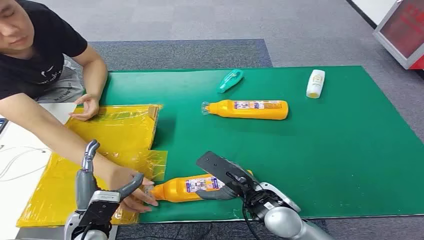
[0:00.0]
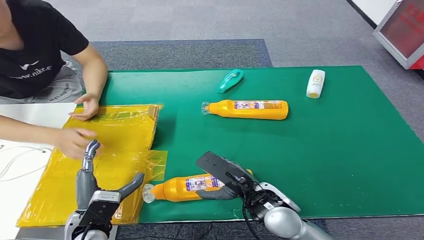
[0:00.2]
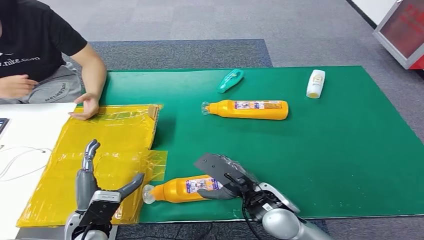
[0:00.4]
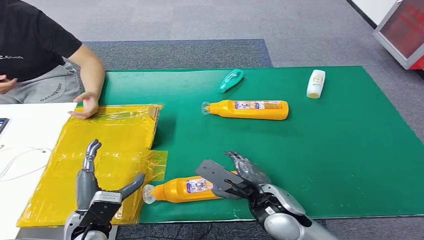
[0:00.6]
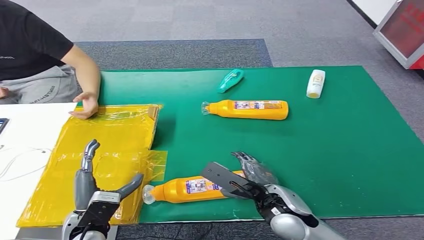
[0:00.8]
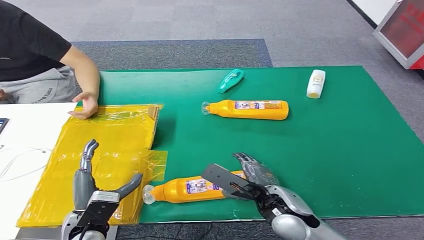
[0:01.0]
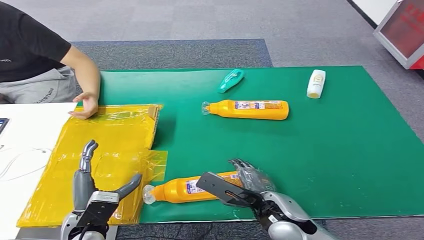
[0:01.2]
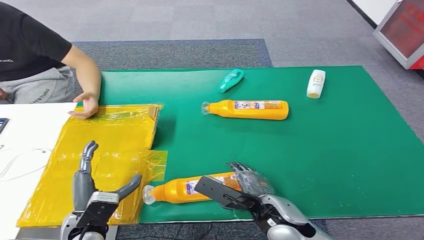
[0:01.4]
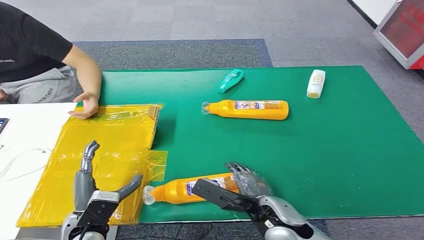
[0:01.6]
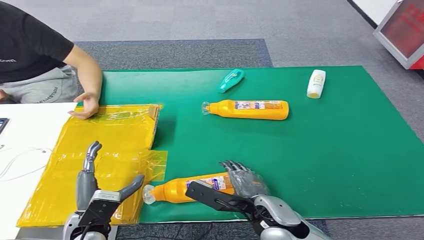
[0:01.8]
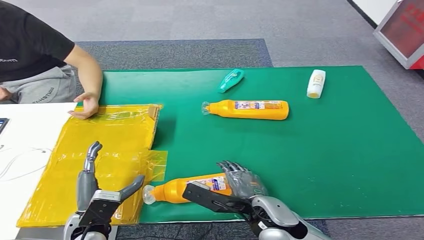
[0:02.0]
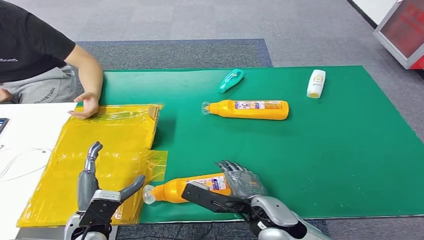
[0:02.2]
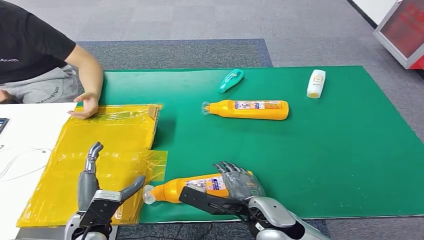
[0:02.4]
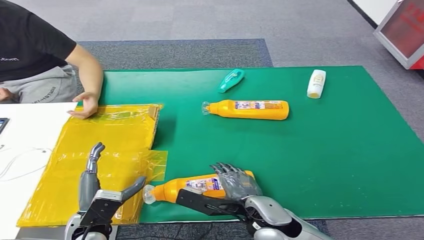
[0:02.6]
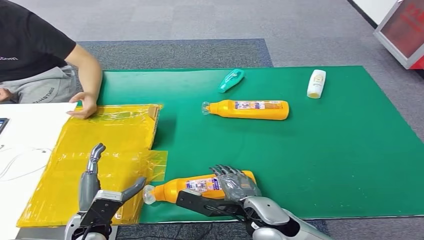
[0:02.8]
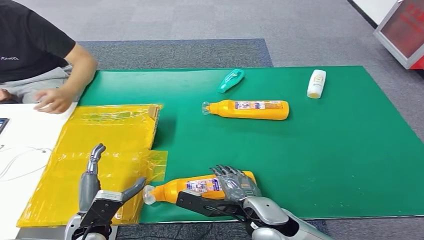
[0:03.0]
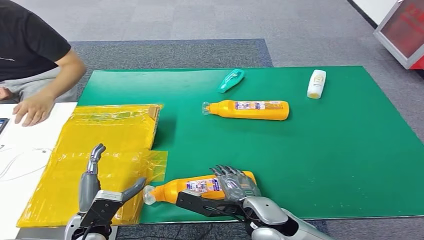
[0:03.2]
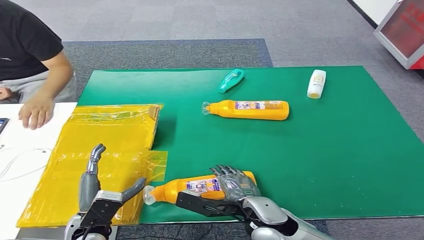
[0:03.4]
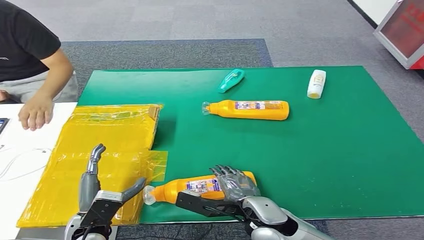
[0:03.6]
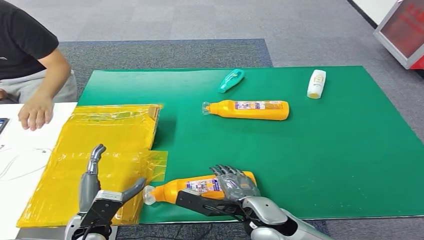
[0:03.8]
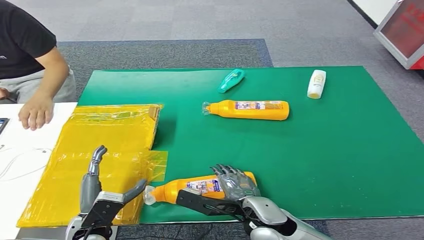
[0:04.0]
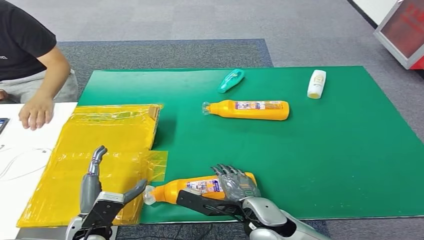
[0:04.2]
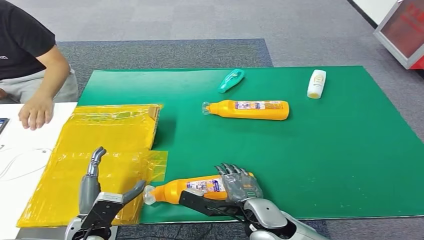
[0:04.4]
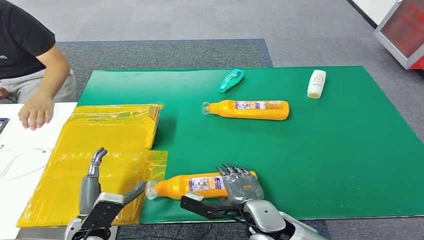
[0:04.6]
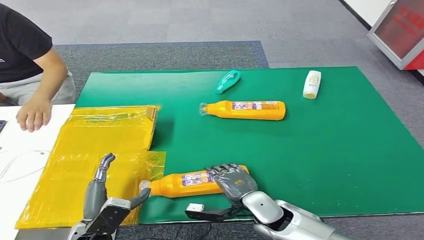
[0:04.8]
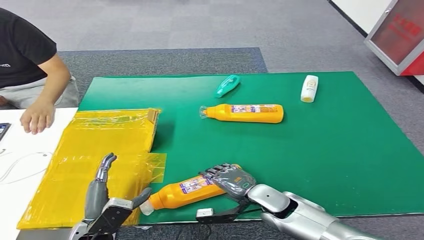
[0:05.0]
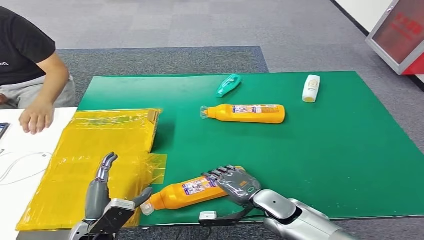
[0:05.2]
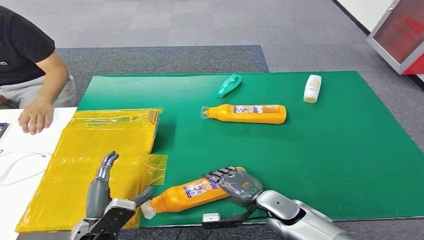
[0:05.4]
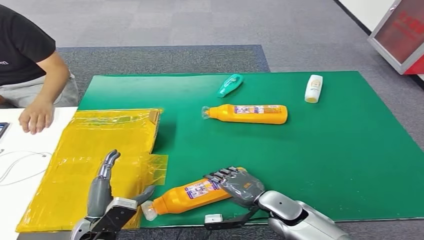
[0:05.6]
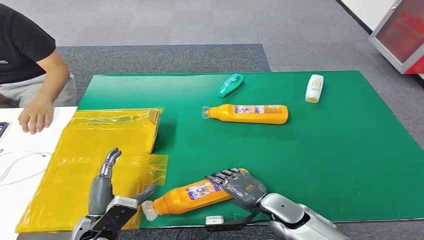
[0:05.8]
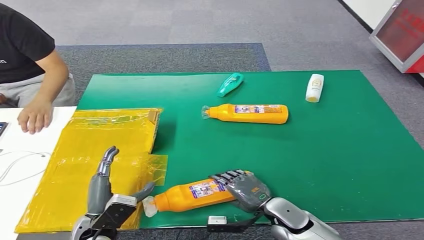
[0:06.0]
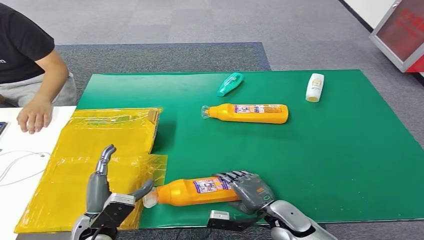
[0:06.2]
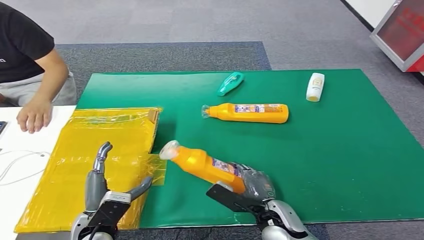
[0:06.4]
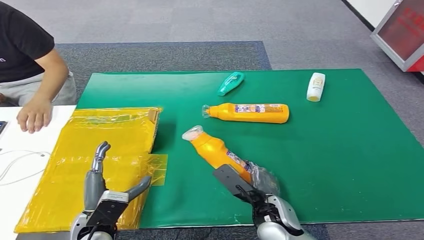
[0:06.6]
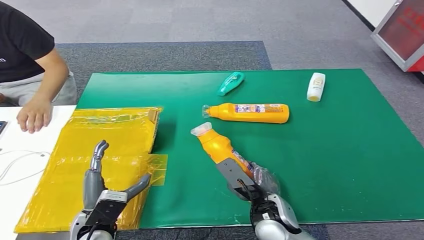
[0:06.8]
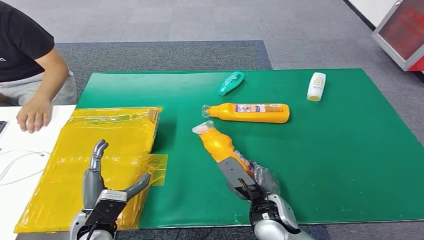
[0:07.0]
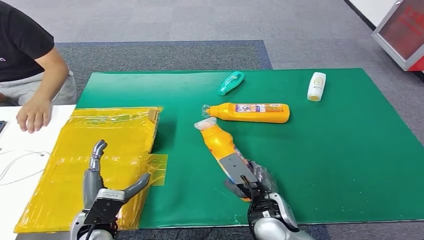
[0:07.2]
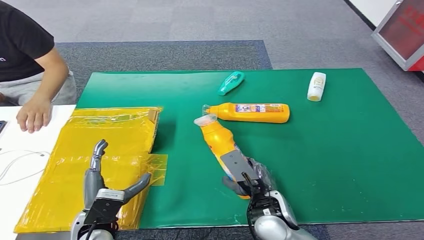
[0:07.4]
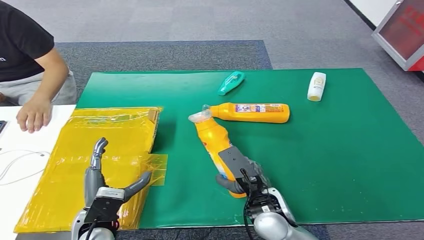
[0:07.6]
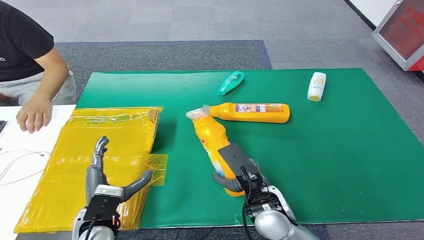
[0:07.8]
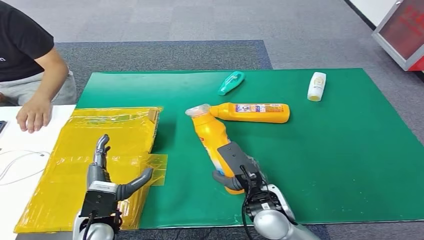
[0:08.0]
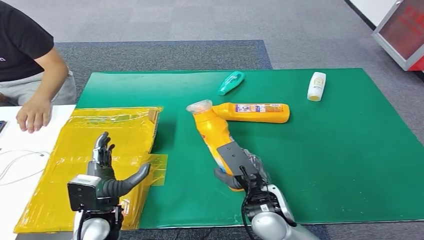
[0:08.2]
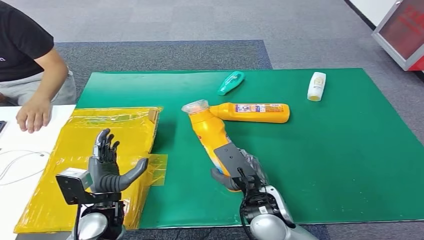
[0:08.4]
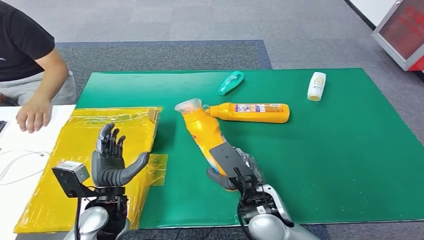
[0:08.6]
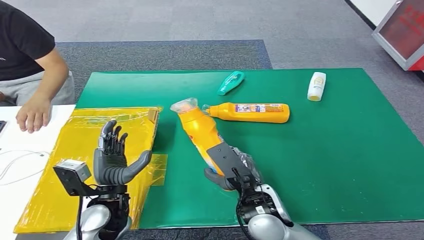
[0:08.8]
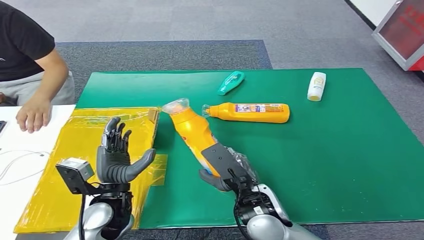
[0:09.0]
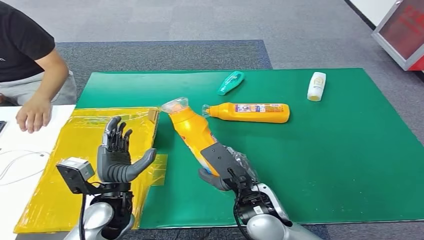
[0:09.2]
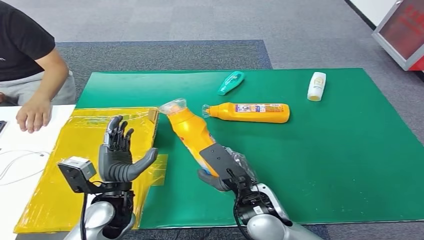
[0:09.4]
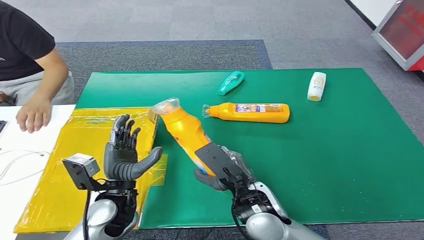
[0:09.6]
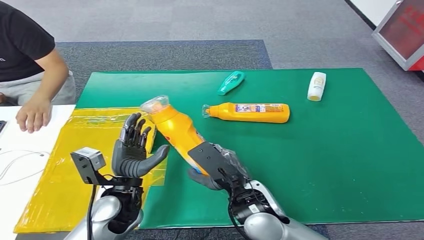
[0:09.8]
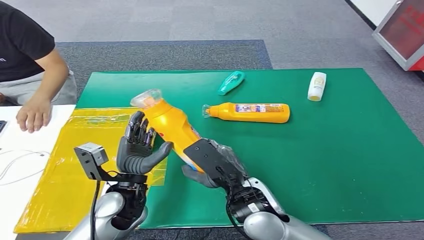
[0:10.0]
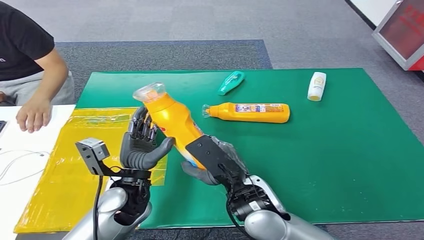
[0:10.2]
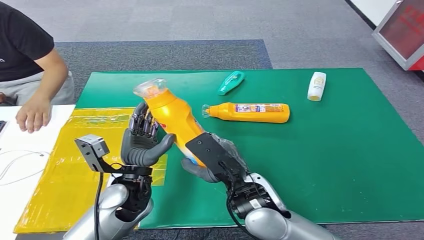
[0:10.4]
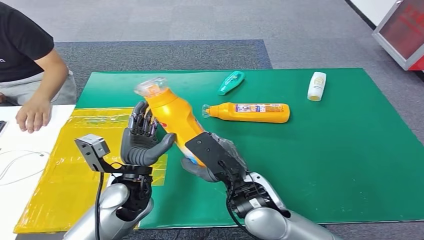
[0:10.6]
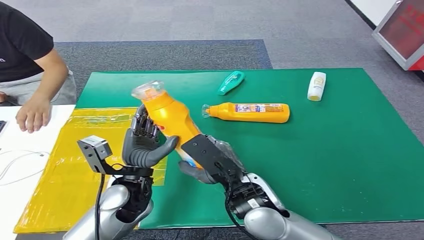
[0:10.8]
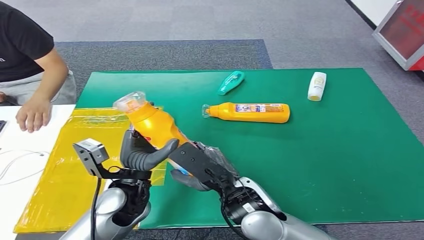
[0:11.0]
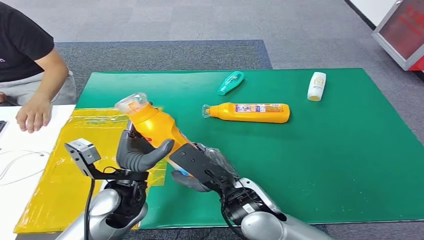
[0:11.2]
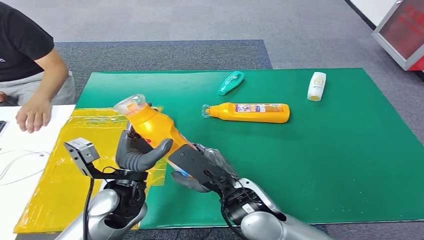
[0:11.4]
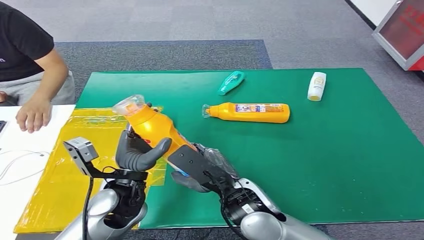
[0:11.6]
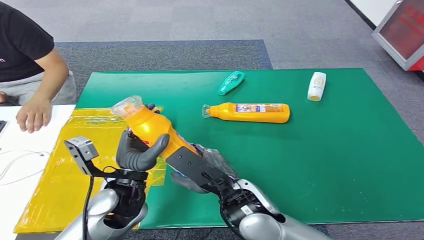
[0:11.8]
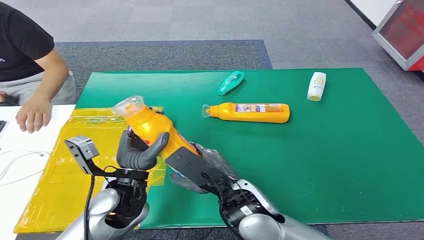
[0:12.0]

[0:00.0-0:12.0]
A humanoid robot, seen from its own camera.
Step, 0:00.0 to 0:07.8: Pick up the bottle from the table.
0:01.6 to 0:04.4: There are only small adjustments of the hands.
0:04.4 to 0:06.0: The right hand heads downward and to the right, covering about 10 cm.
0:06.0 to 0:07.6: The right hand travels upward and to the left by approximately 15 cm.
0:07.6 to 0:09.0: The left hand moves roughly 5 cm.
0:09.0 to 0:10.4: The left hand changes place by approximately 5 cm; the right hand moves some 5 cm.
0:10.4 to 0:12.0: There are only small adjustments of the hands.

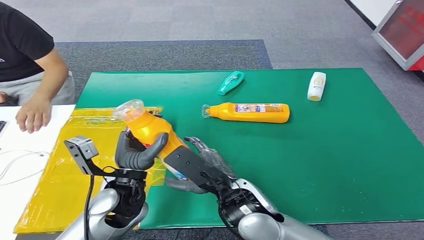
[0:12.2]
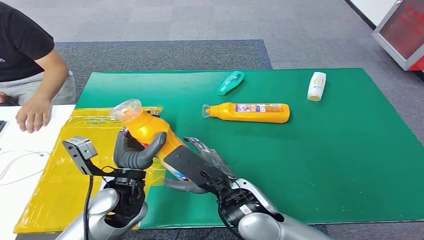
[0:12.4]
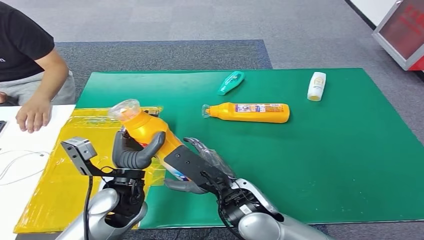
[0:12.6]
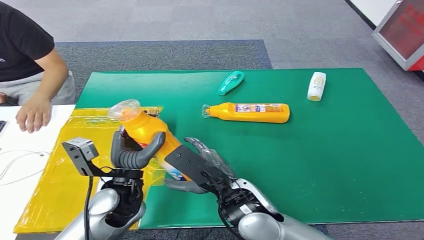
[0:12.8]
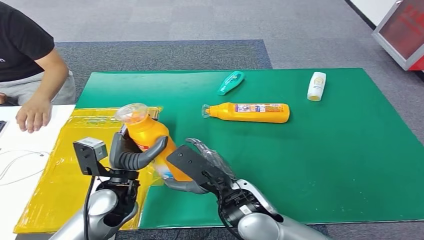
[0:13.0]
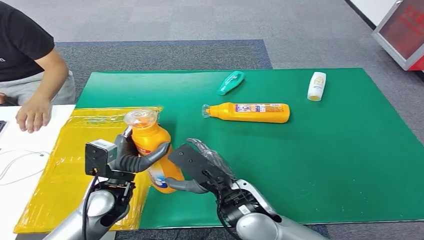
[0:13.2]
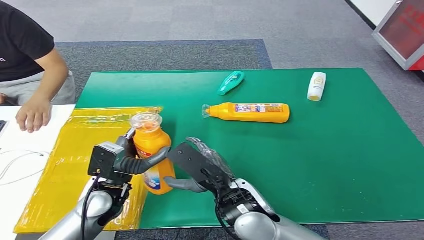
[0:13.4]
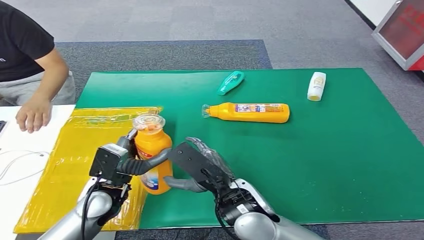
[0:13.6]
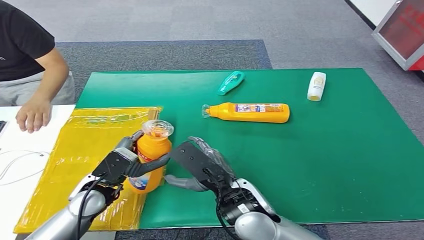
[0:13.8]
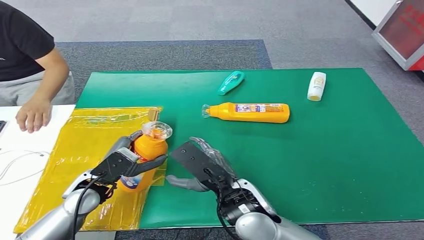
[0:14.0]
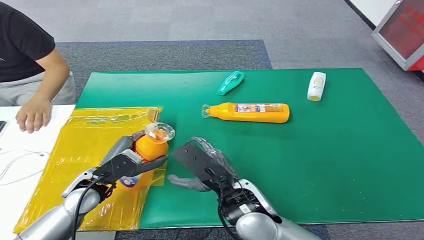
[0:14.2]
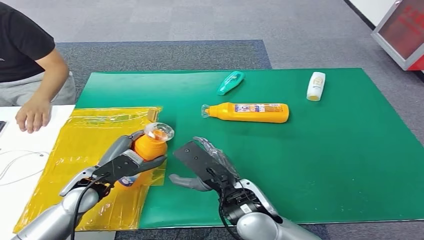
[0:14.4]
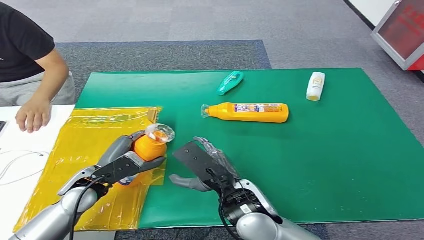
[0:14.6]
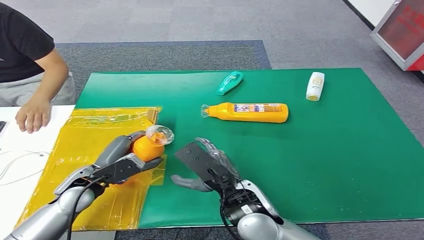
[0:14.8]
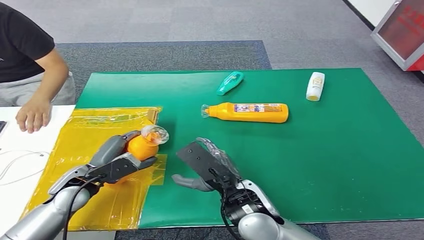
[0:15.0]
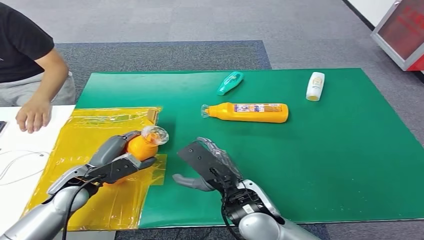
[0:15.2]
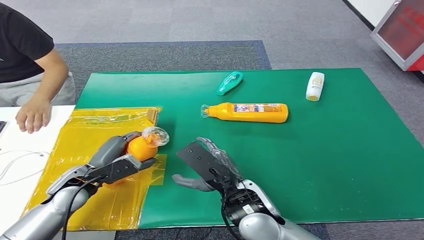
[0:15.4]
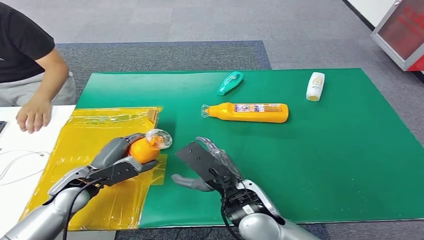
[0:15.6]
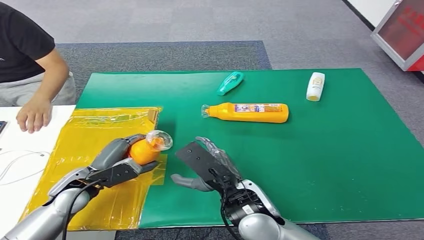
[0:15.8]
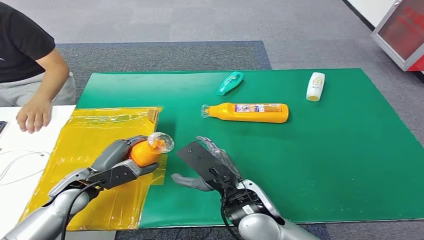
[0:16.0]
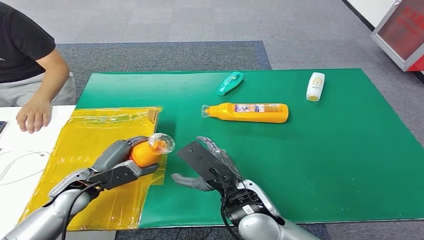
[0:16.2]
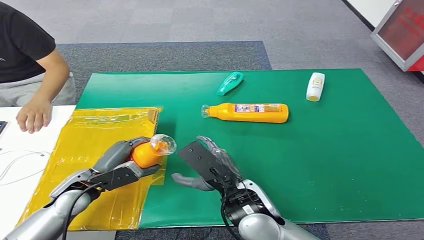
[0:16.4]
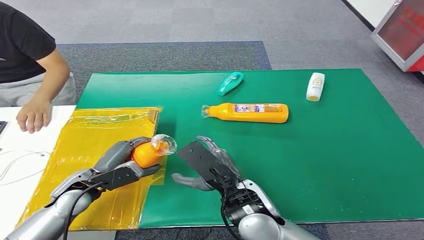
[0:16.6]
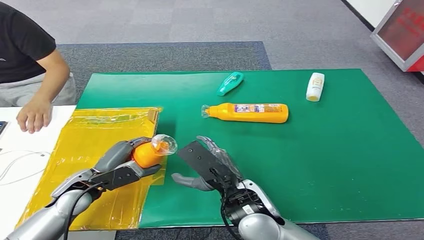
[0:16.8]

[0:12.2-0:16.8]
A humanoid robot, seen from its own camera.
0:12.2 to 0:13.8: The left hand shifts roughly 5 cm to the left.
0:13.8 to 0:15.2: The left hand is displaced to the left by some 5 cm.
0:15.2 to 0:16.8: The hands make only small movements.
